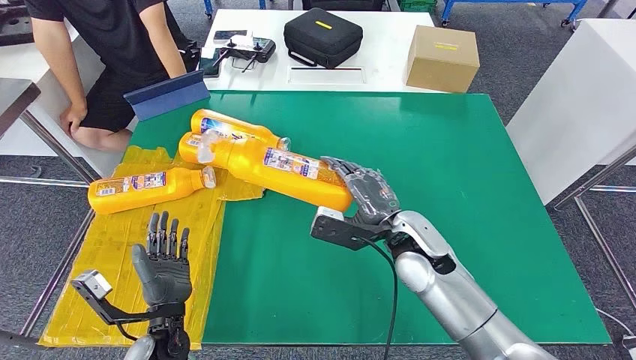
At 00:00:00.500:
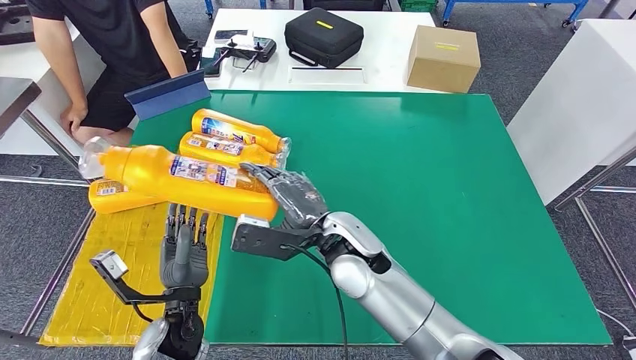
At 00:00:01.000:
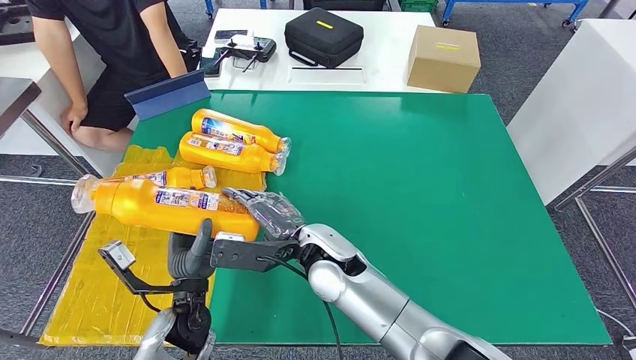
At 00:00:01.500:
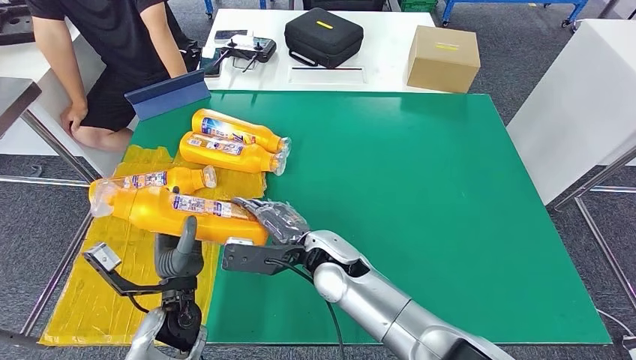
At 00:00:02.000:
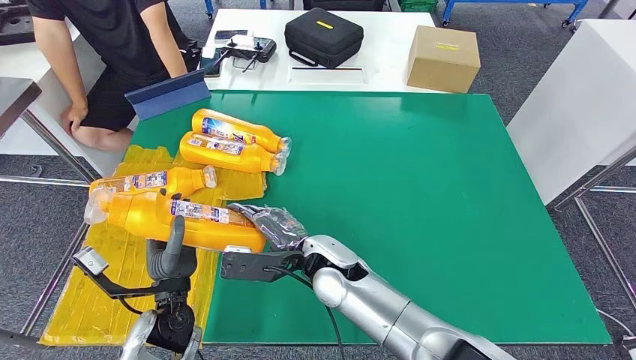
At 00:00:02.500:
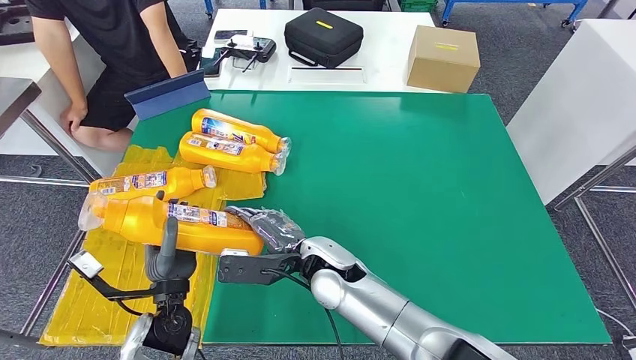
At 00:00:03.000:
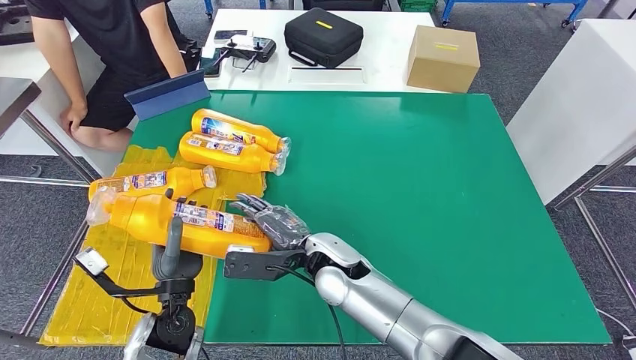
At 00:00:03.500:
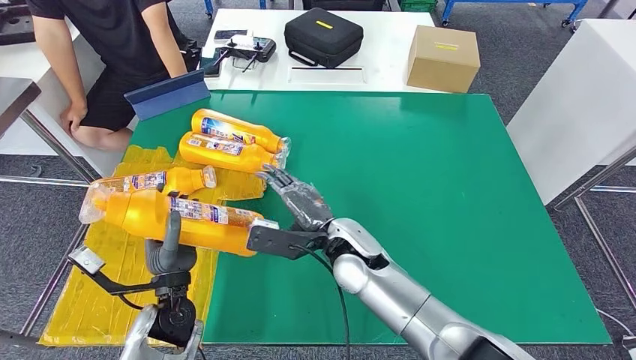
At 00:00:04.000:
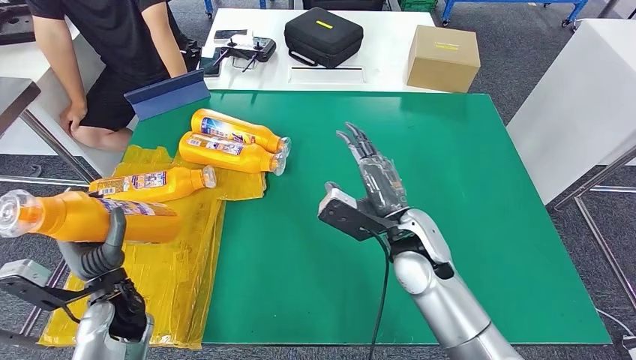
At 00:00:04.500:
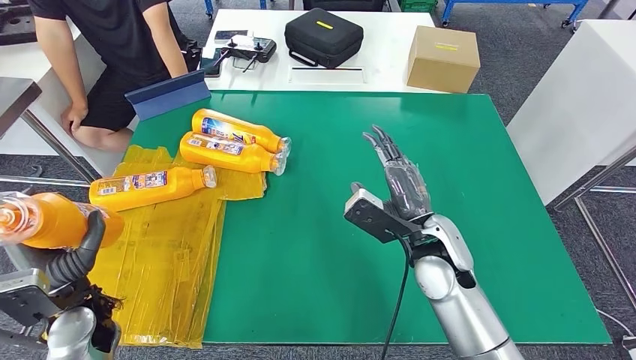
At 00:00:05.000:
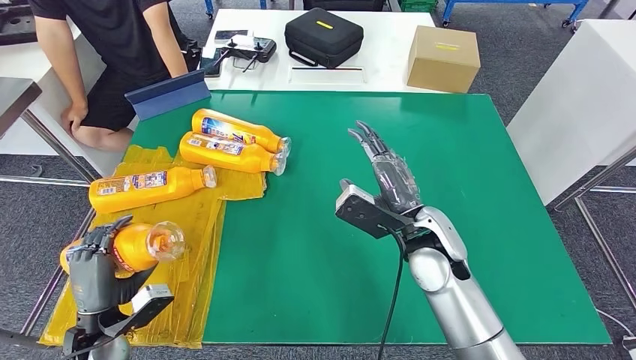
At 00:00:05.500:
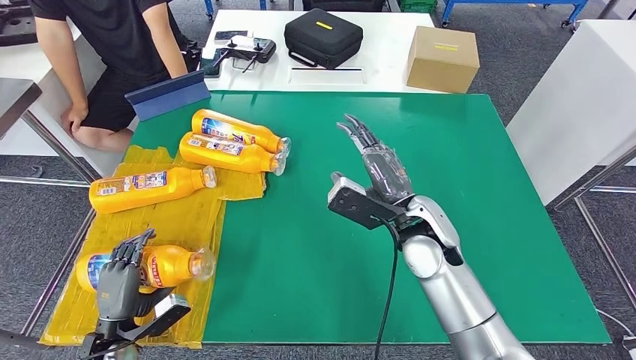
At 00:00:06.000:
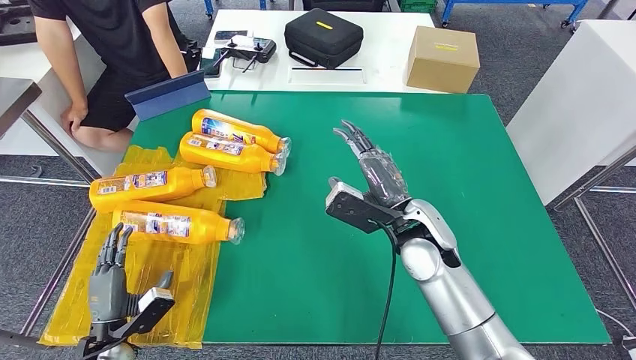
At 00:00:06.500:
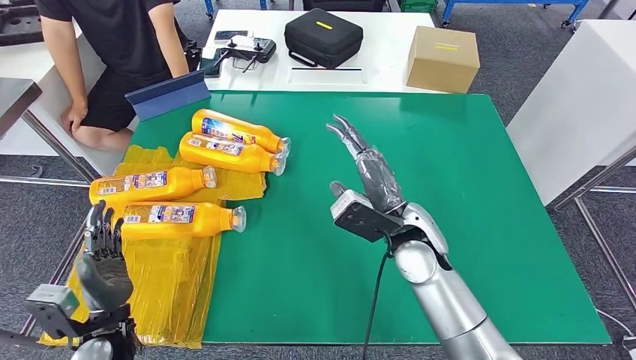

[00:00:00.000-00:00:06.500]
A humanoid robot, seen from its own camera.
Step, 00:00:02.000 to 00:00:06.500: Flip the bottle to face forward.
00:00:00.000 to 00:00:02.000: The right hand heads to the left, covering approximately 15 cm.
00:00:04.500 to 00:00:06.500: The left hand reaches about 10 cm downward, then returns.
